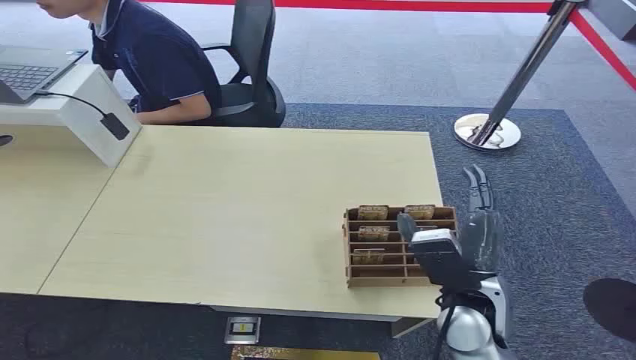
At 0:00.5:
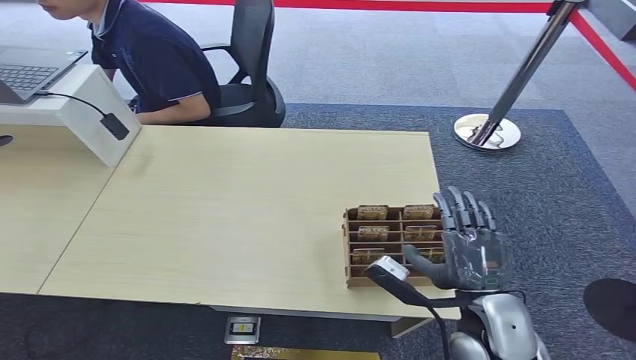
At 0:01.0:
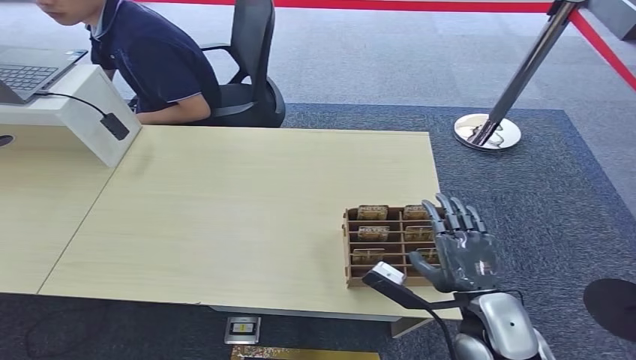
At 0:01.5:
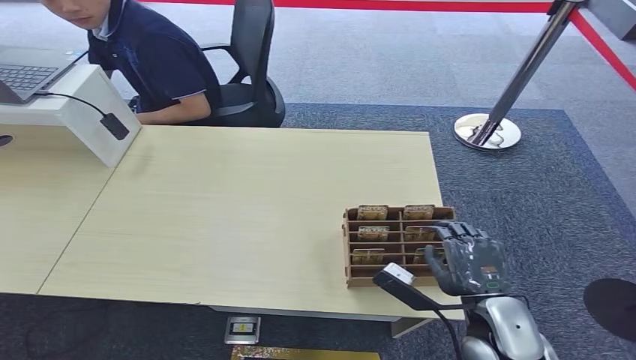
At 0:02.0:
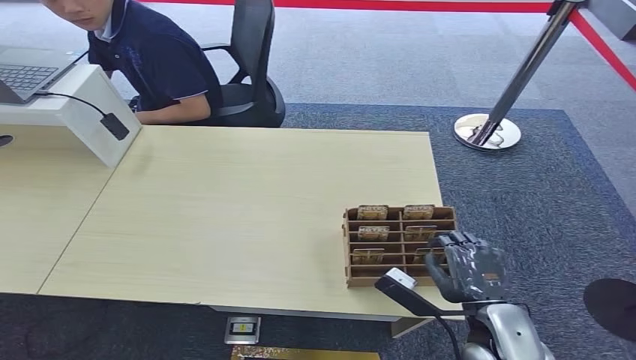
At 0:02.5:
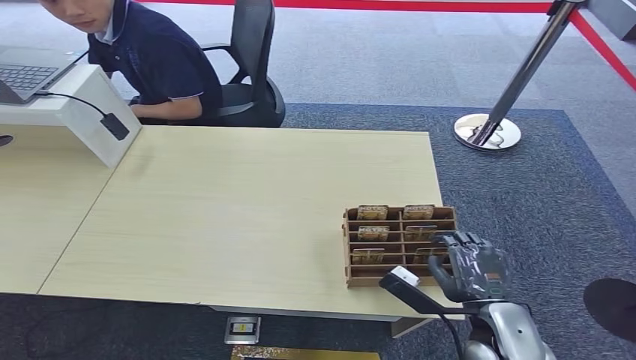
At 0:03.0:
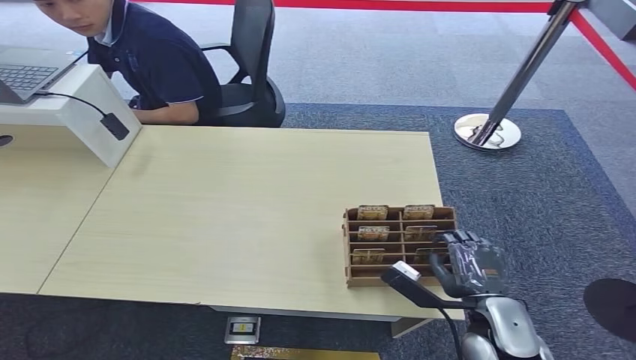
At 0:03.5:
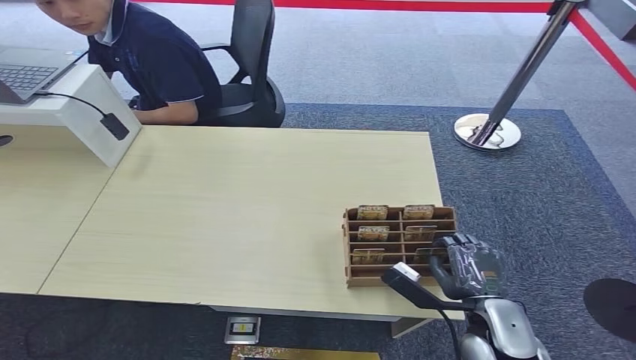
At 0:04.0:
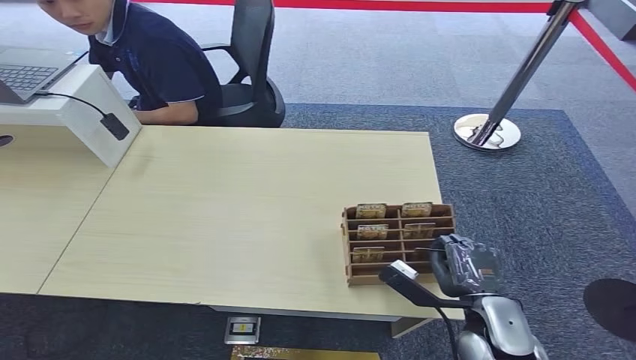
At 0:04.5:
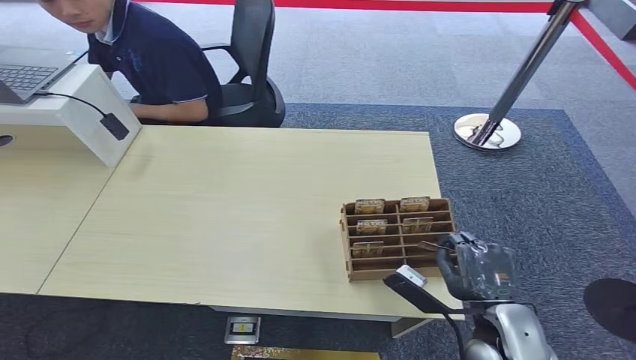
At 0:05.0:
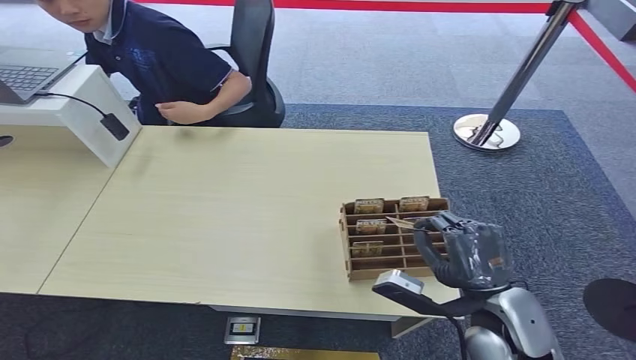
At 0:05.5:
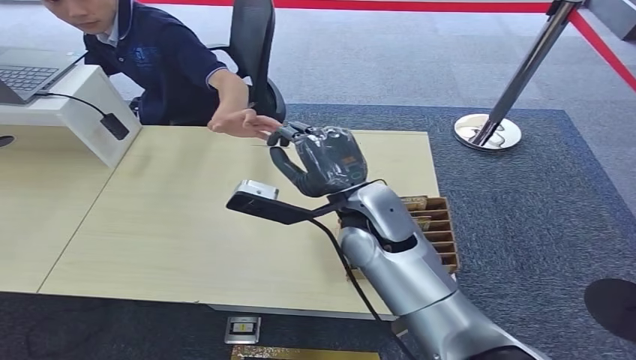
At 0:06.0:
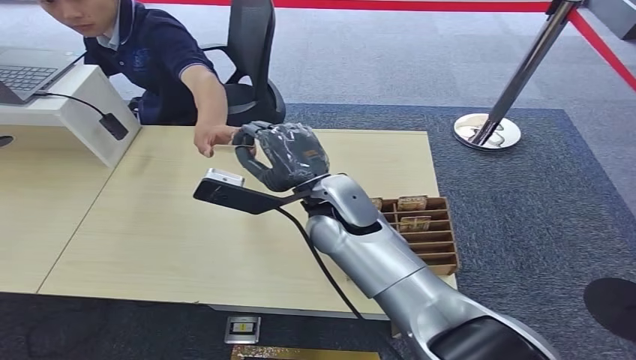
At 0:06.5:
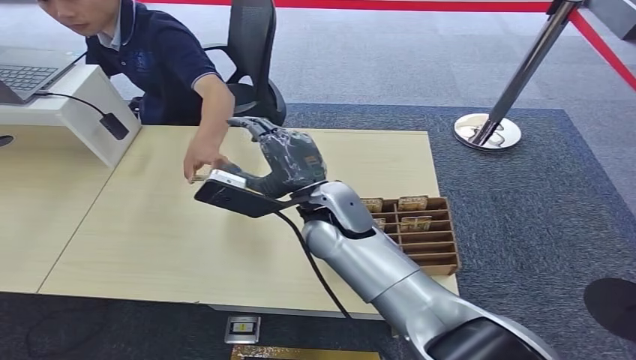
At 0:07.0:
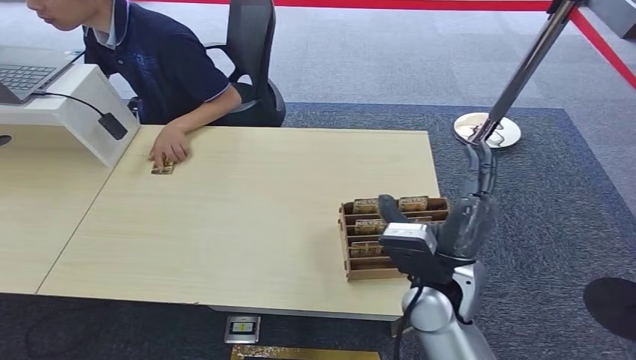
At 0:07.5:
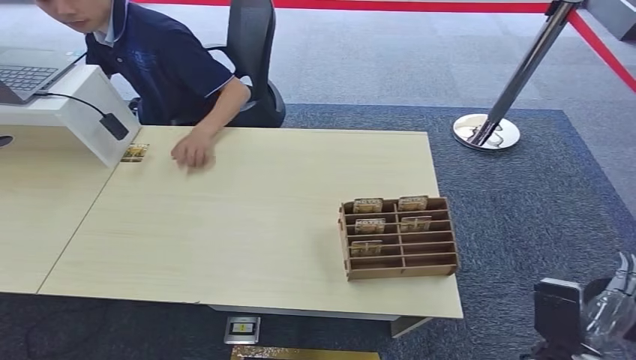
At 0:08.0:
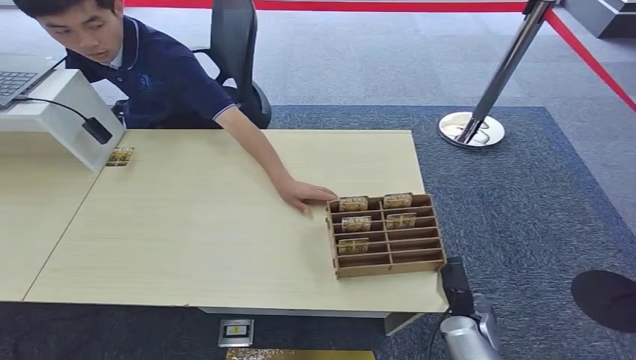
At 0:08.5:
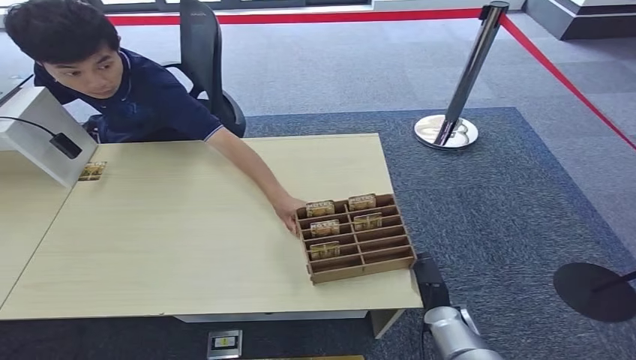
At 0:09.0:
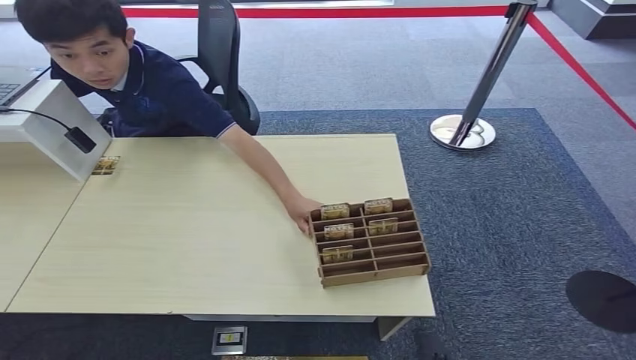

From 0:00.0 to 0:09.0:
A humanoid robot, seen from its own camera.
Step, from 0:00.0 to 0:04.5: Pick up the key card from the card box.
Step, from 0:05.0 to 0:09.0: Hand the key card to the target.
From 0:02.0 to 0:04.5: There are only small adjustments of the hands.
From 0:04.5 to 0:07.0: The right hand goes roughly 15 cm to the left, upward and forward.

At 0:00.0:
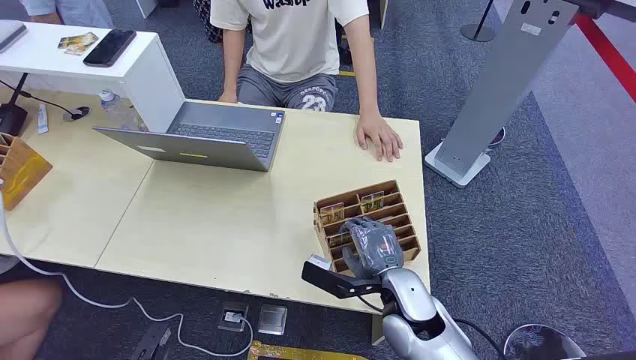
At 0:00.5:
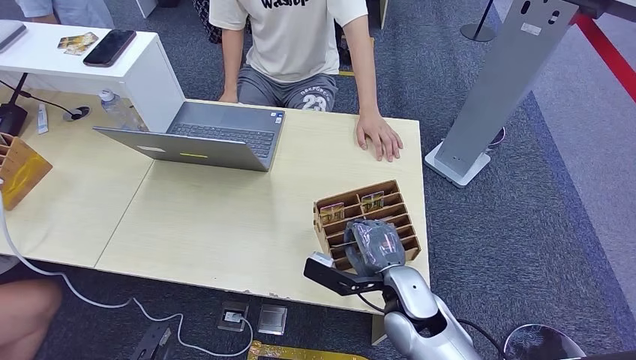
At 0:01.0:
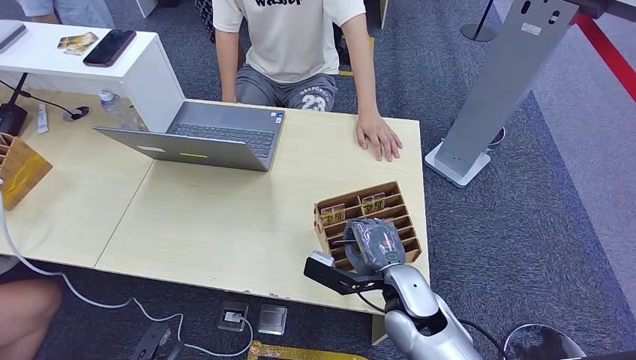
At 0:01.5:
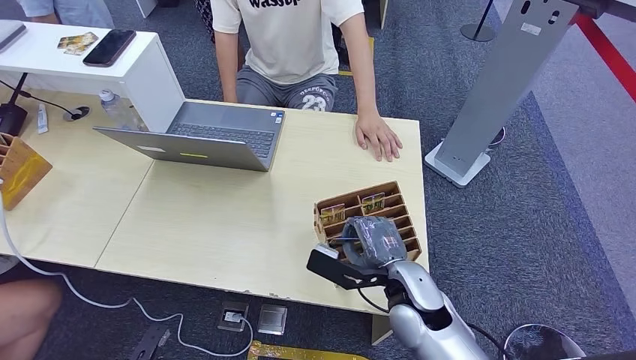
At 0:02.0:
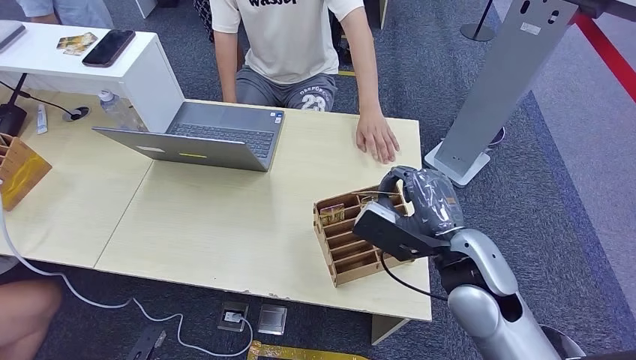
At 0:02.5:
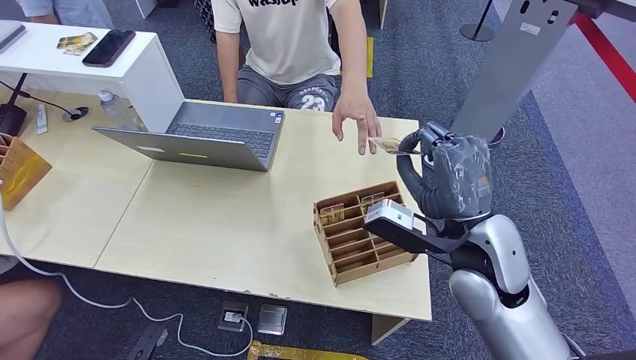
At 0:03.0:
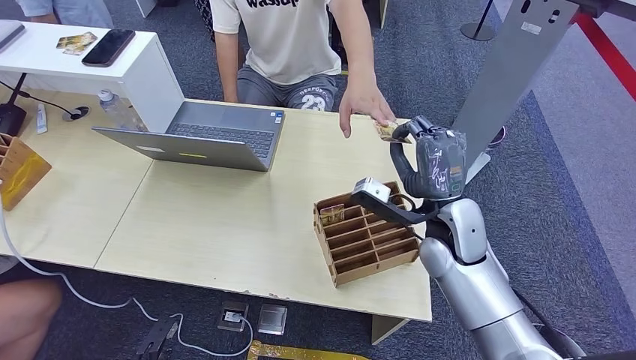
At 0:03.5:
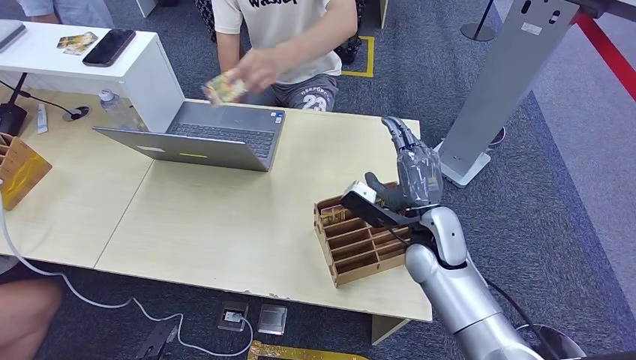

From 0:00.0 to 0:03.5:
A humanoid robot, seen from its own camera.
Step, from 0:00.0 to 0:01.5: Pick up the key card from the card box.
Step, from 0:02.5 to 0:03.5: Hand the key card to the target.
From 0:02.0 to 0:03.5: The right hand travels forward and downward by roughly 10 cm.
